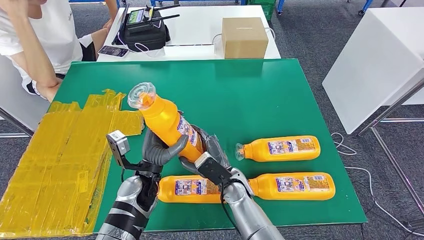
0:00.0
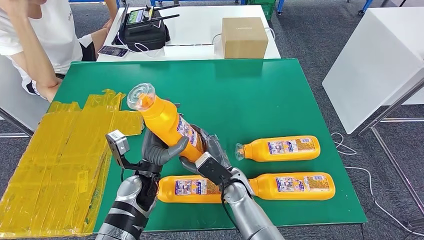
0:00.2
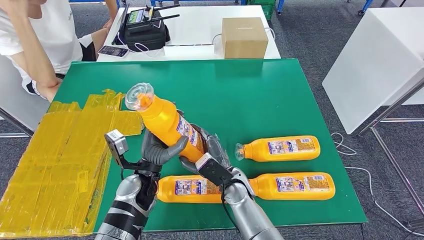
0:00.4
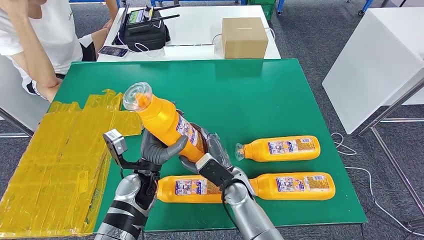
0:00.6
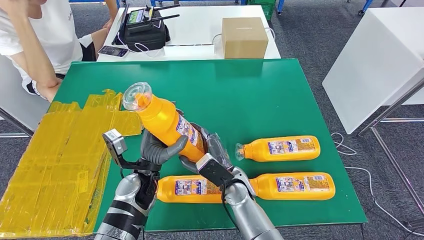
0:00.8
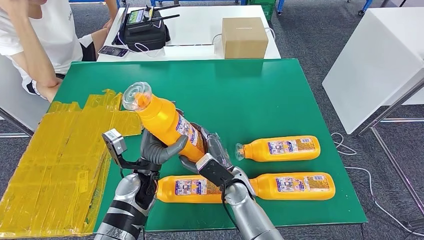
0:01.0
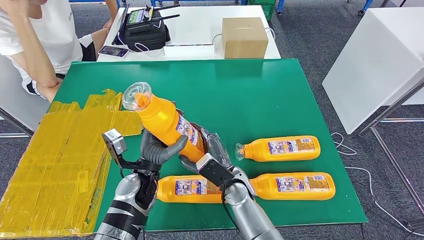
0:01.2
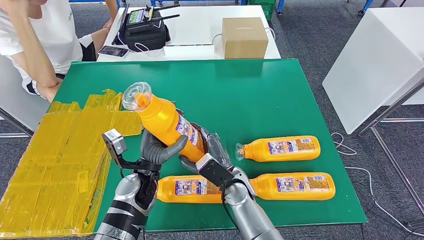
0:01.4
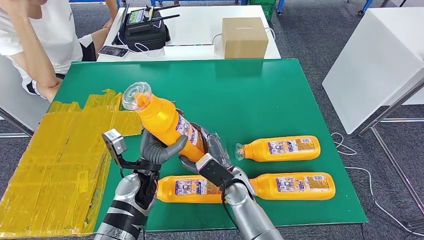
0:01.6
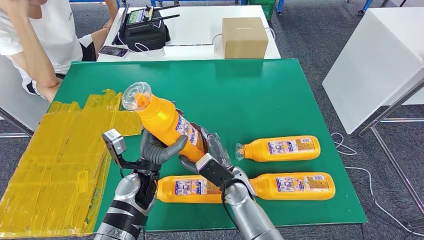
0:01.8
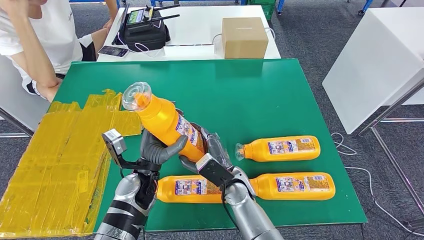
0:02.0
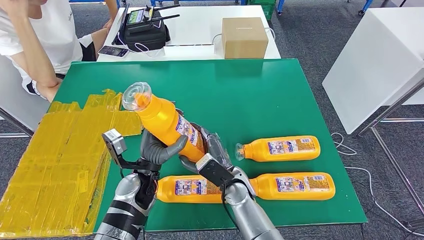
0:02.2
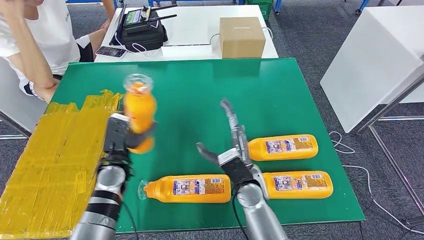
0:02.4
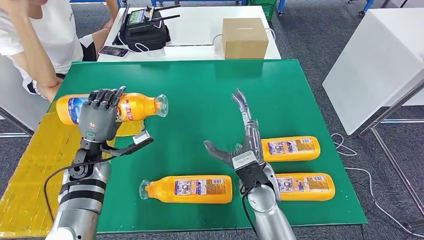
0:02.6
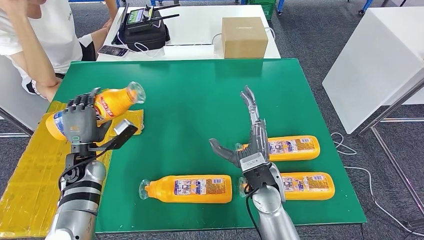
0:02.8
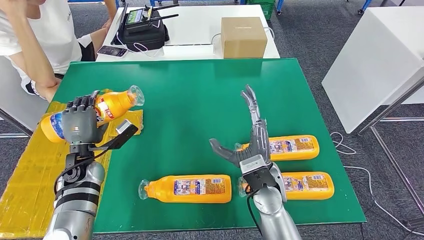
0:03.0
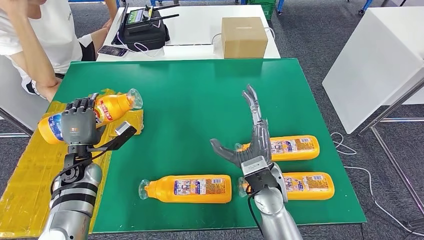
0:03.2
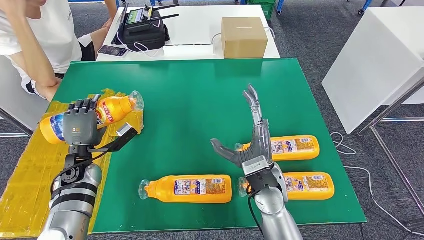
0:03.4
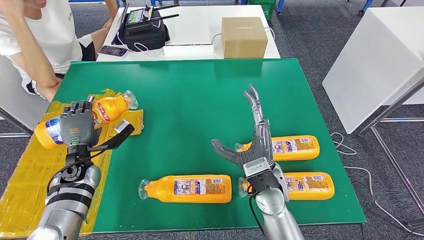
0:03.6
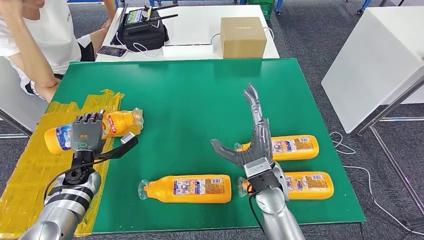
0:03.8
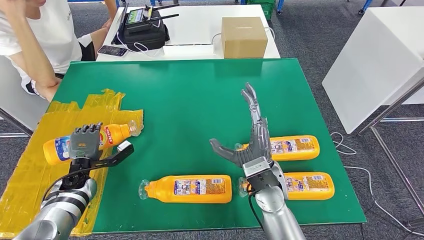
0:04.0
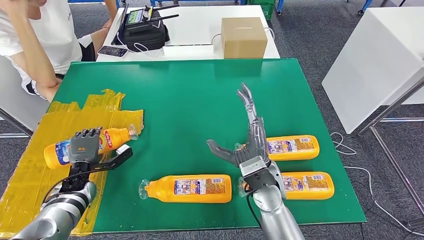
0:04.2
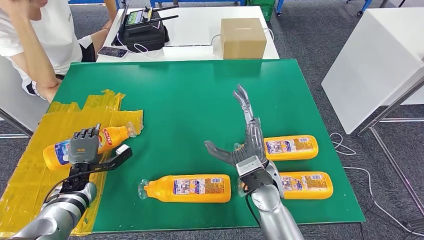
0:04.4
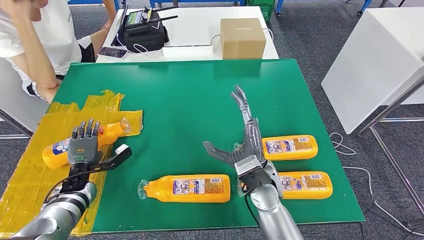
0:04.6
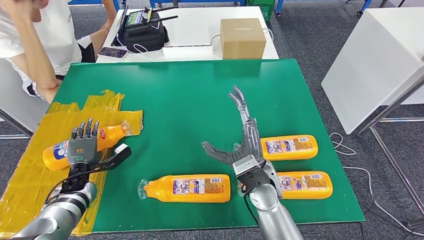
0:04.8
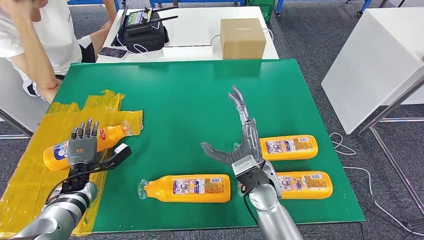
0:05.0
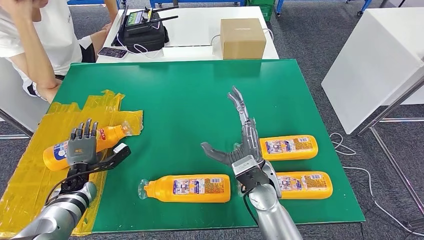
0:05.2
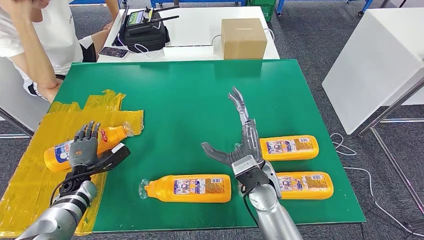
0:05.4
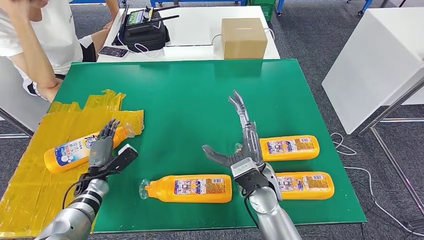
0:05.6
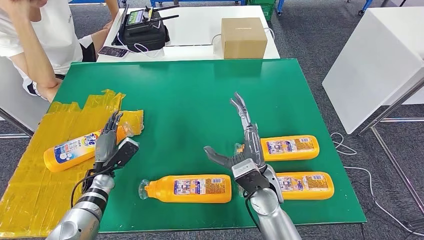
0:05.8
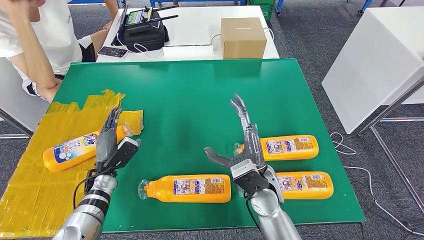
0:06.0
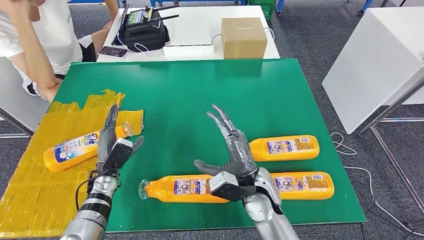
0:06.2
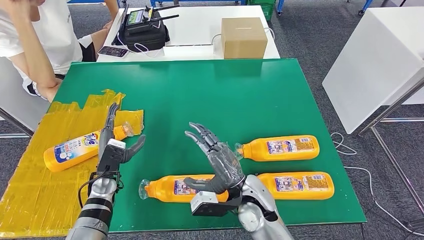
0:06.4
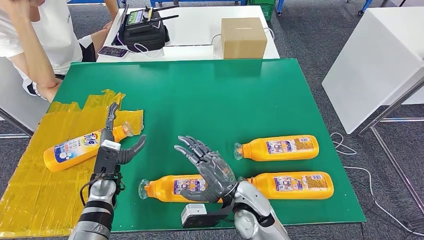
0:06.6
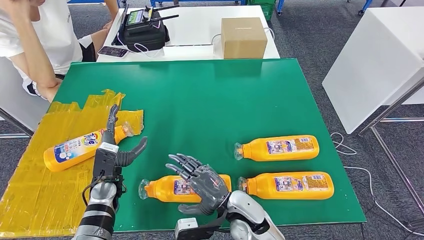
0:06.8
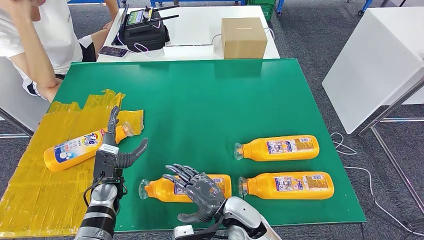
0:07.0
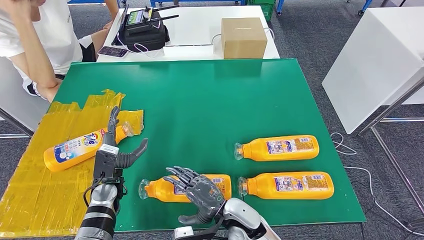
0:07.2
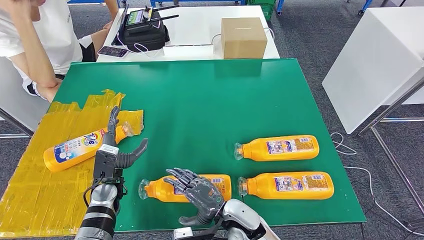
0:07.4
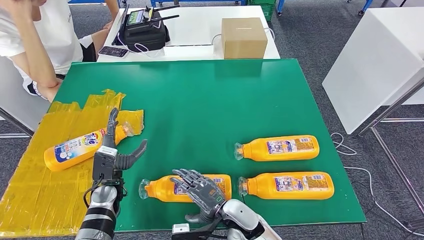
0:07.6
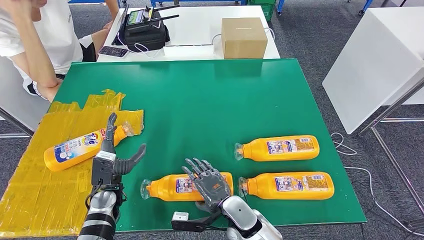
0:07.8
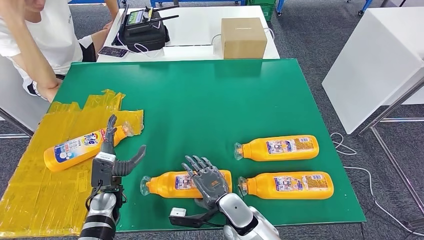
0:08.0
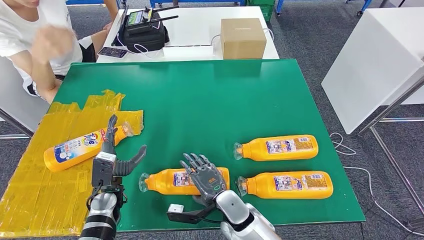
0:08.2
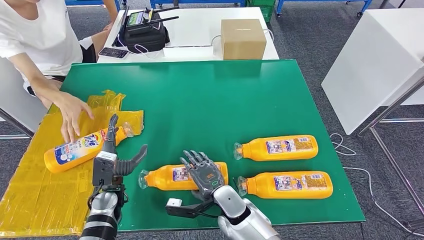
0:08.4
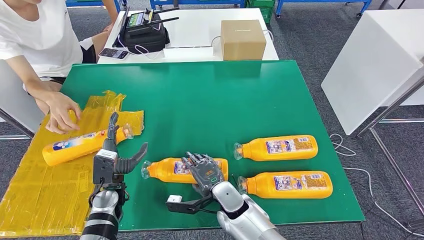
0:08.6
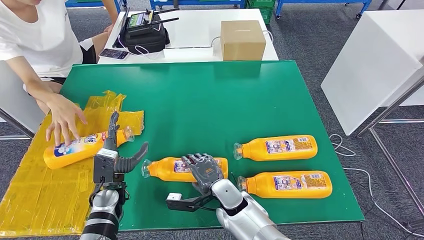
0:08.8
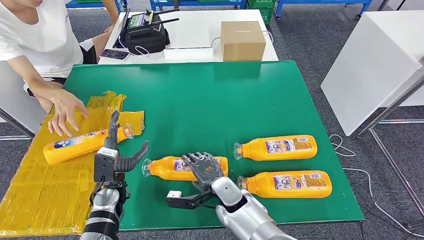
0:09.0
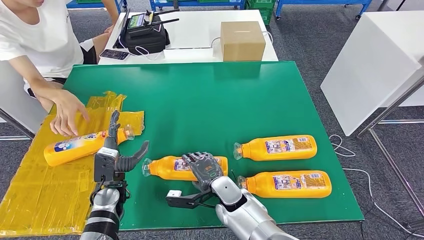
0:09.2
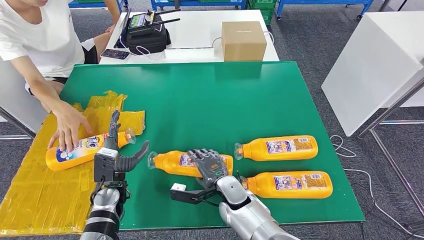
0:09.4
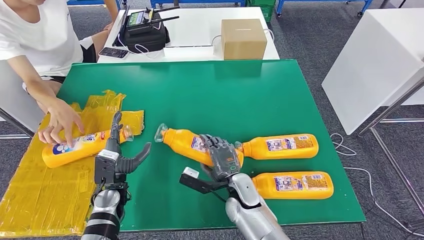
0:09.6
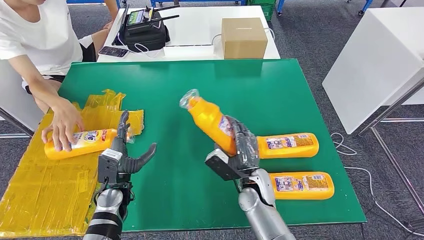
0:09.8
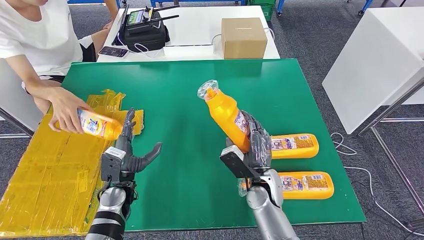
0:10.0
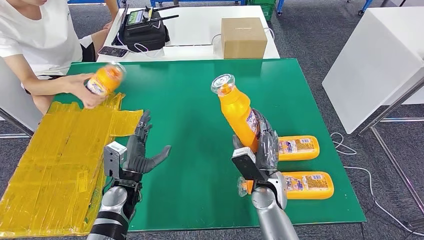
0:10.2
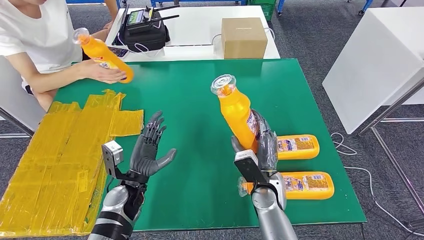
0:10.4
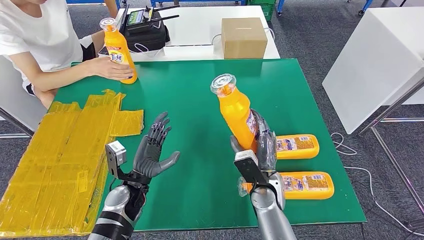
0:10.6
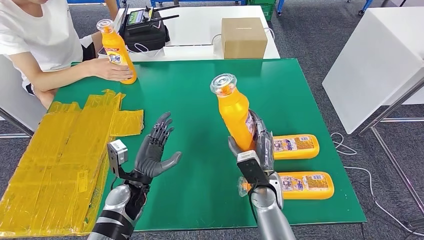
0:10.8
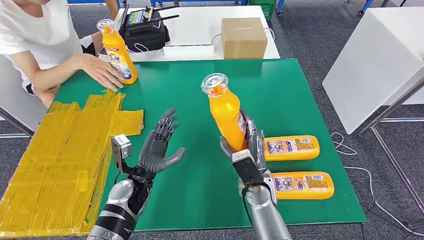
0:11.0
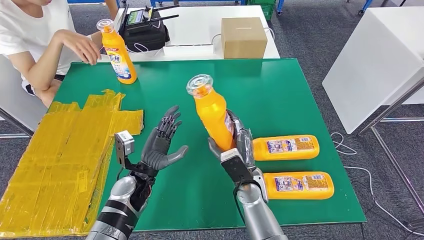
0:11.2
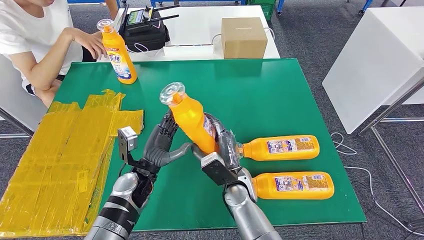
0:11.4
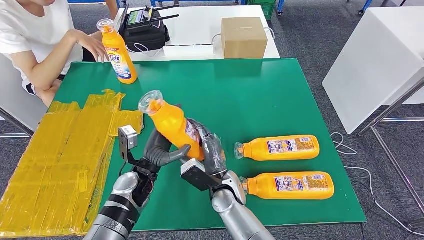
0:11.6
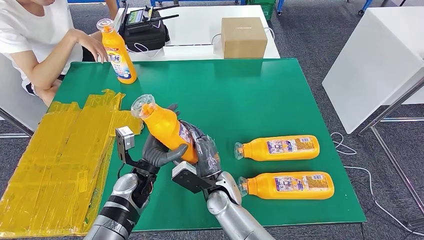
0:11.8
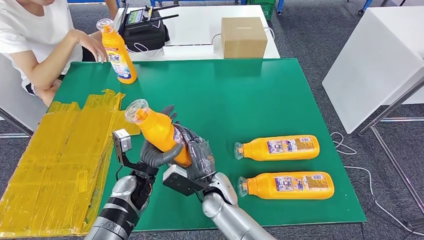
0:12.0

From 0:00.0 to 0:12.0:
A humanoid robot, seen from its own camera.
Step, from 0:00.0 to 0:04.0: Flip the fast-moving consumer goods bottle to the front side.
Step, from 0:04.2 to 0:10.6: Pick up the fast-moving consumer goods bottle from the table.
From 0:00.0 to 0:01.6: Both hands stay put.
From 0:03.0 to 0:04.4: The left hand is displaced downward and to the left by some 10 cm.
From 0:04.4 to 0:06.0: The left hand travels to the right by about 10 cm.
From 0:06.0 to 0:07.6: The right hand is displaced downward and backward by some 10 cm. The left hand shifts by some 5 cm.
From 0:10.4 to 0:12.0: The right hand goes about 15 cm to the left.

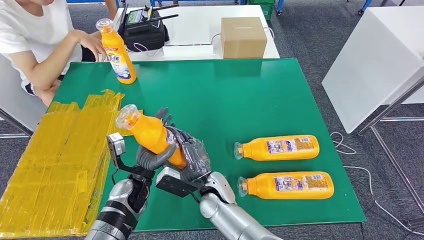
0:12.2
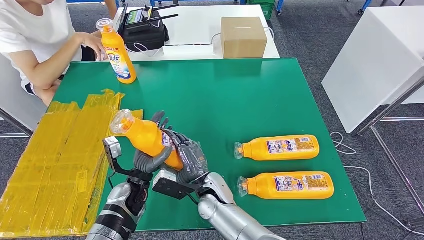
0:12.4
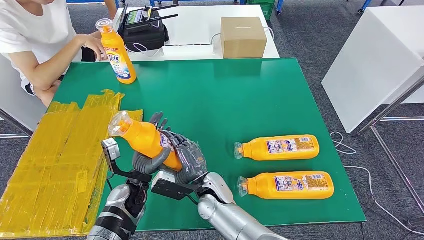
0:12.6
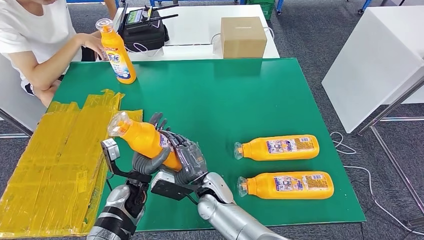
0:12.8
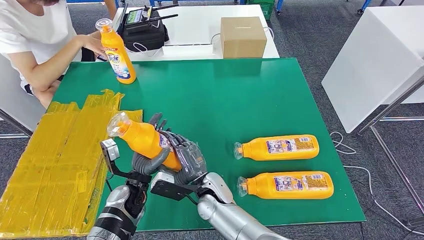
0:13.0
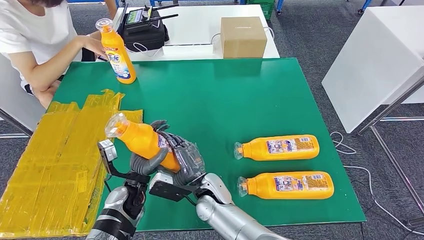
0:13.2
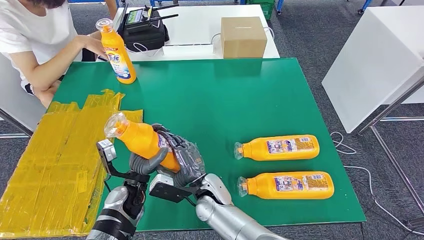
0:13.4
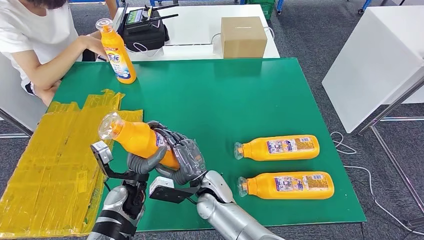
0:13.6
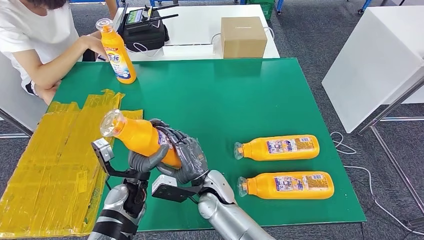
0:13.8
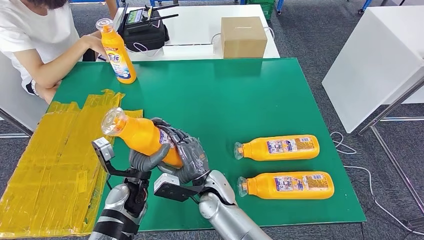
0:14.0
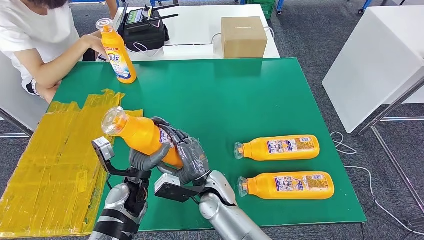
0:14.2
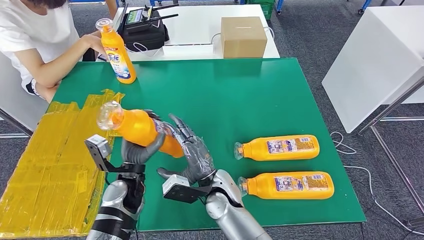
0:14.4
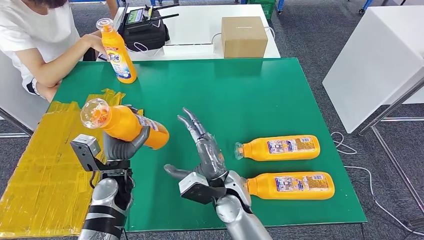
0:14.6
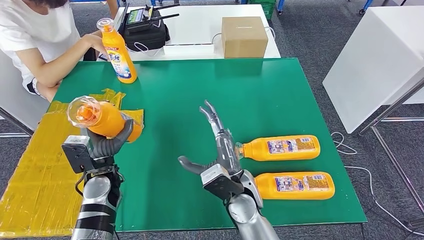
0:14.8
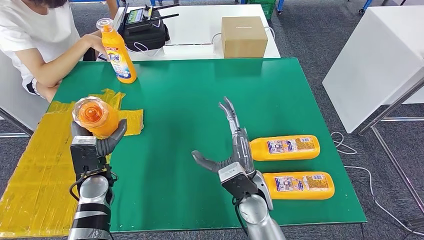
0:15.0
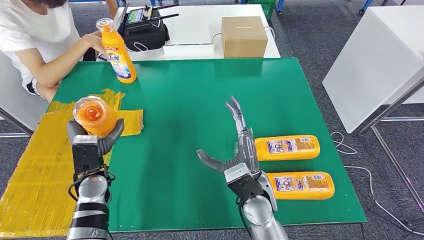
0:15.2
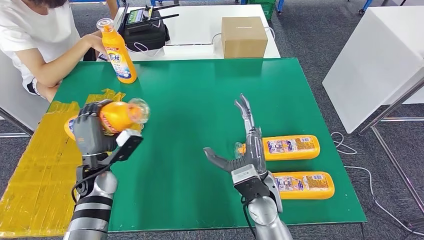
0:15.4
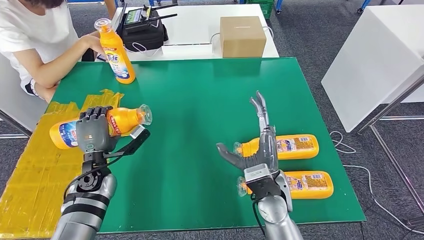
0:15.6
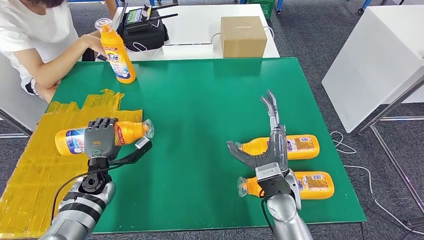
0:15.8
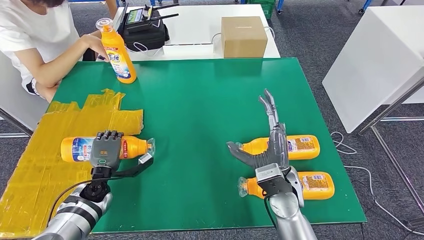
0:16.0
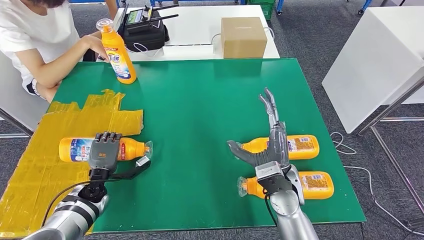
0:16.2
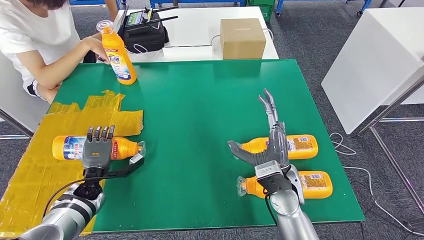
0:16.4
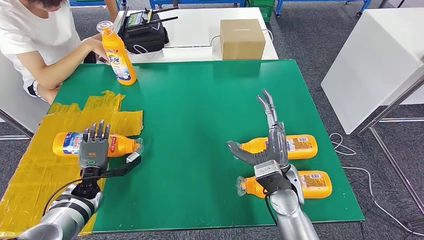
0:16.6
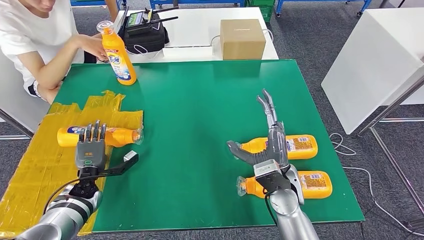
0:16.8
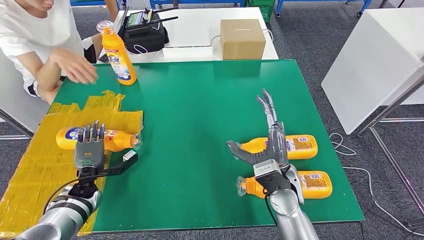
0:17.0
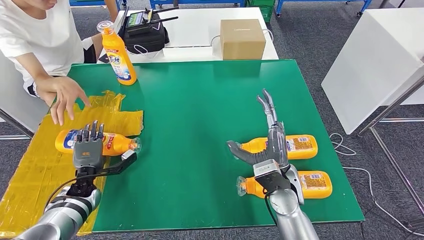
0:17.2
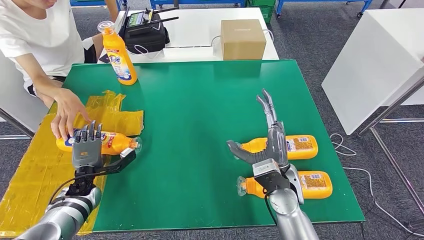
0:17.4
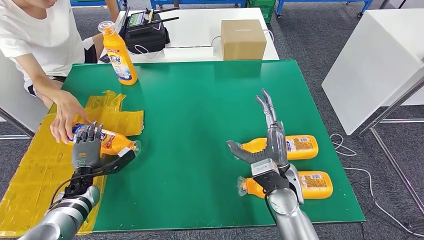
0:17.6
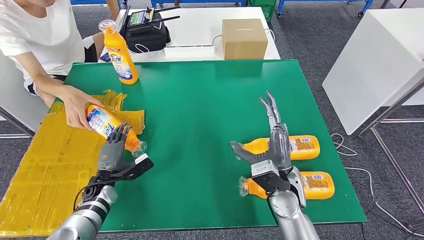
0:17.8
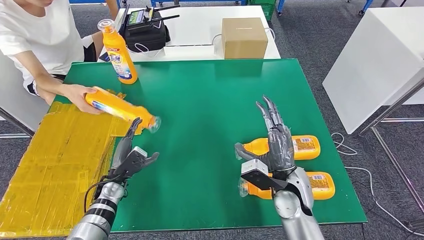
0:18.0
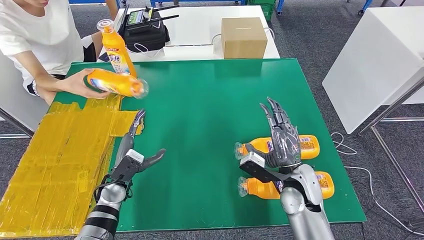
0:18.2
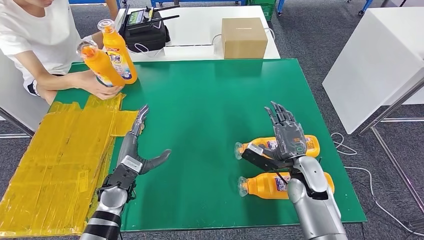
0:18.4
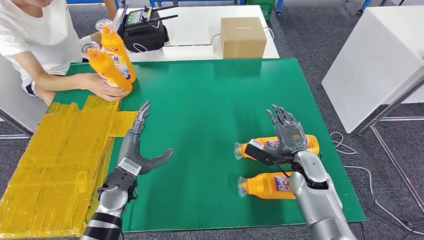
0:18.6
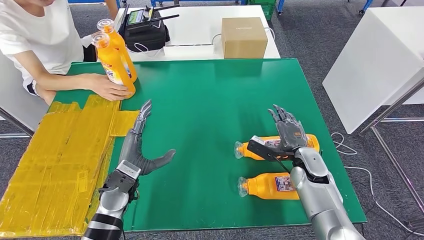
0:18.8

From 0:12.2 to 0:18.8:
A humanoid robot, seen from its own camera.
Step, from 0:12.2 to 0:16.6: Flip the fast-moving consumer goods bottle to the front side.
From 0:12.2 to 0:13.8: There are only small adjustments of the hands.
From 0:13.8 to 0:15.4: The right hand travels to the right and upward by some 15 cm; the left hand goes approximately 10 cm to the left.
